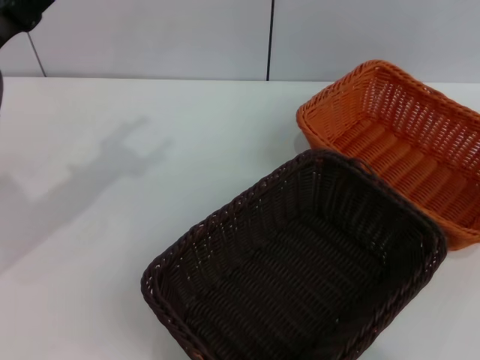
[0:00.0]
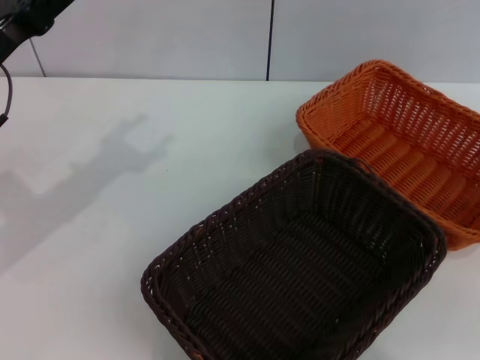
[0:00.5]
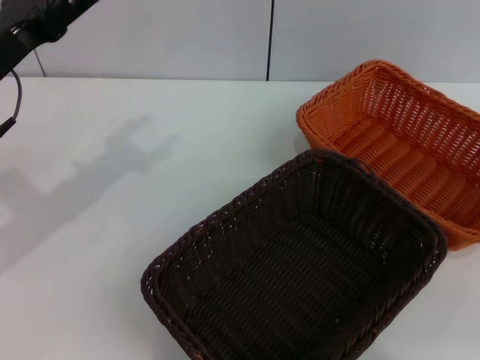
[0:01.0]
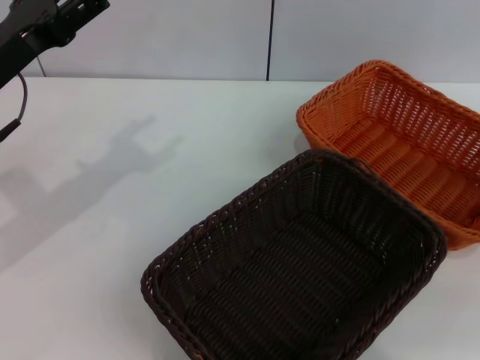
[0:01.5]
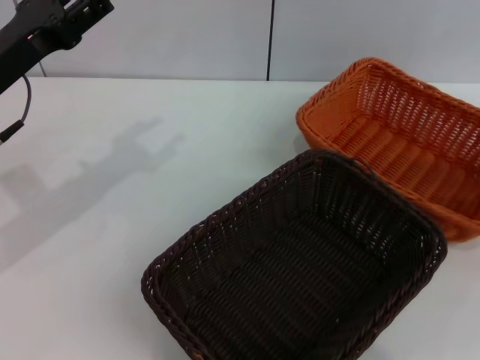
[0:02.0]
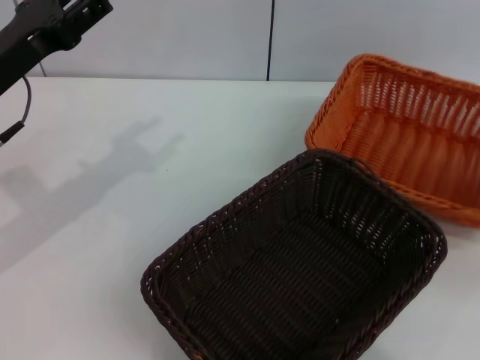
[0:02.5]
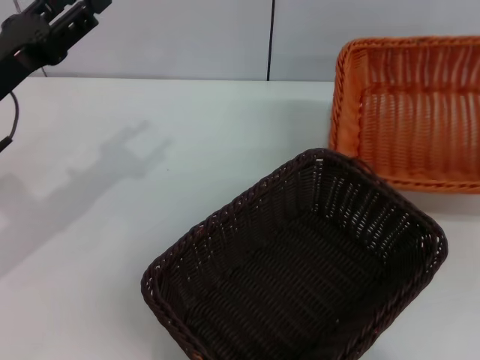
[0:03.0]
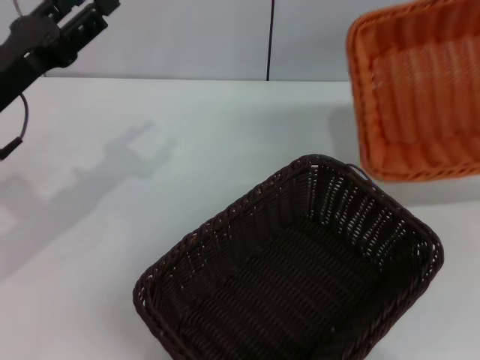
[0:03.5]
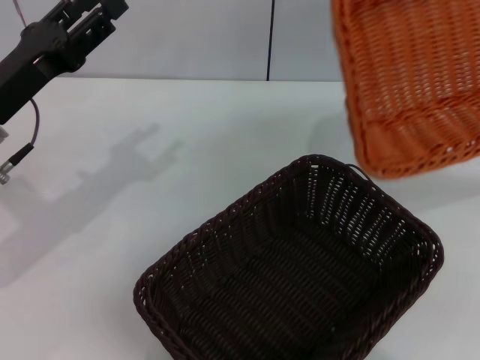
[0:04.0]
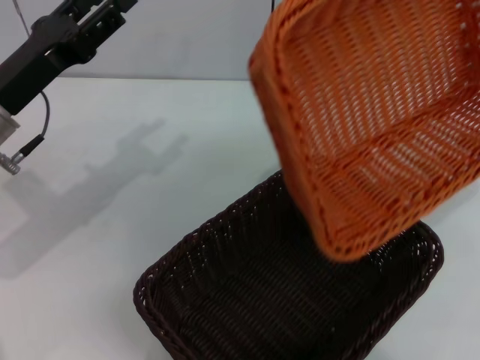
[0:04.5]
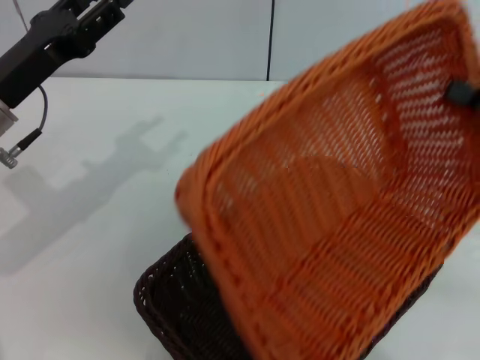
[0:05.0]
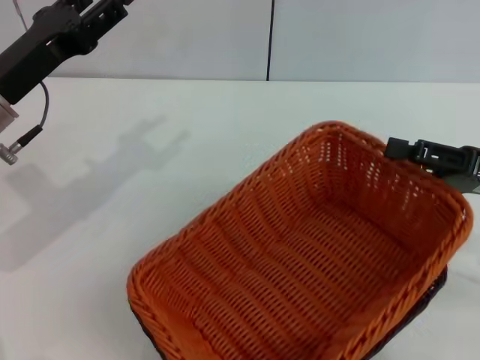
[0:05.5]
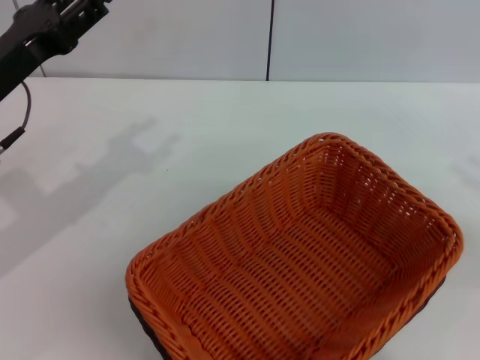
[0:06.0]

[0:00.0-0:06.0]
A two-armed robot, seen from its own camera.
Step, 0:00.0 to 0:02.5: Pick up the light basket with the right gripper.
Step, 0:03.0 to 0:05.5: Place the light basket on the dark basket with the right gripper.
0:00.0 to 0:02.0: The right gripper moves downward and to the left, about 15 cm.
0:02.0 to 0:04.0: The right gripper goes about 5 cm upward, and closes up.
0:04.0 to 0:06.0: The right gripper shifts some 10 cm downward, moves roughly 10 cm to the left and comes back, and opens its fingers.
